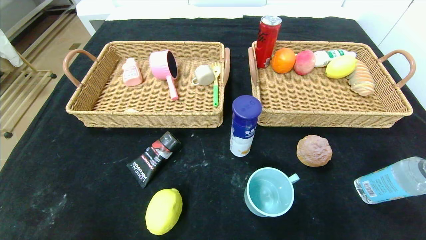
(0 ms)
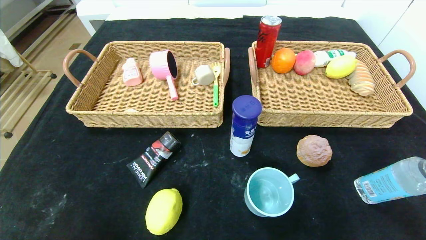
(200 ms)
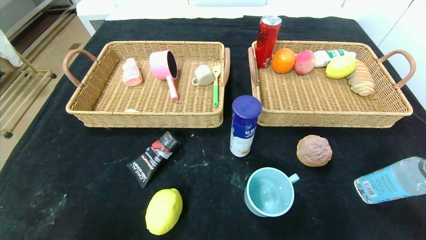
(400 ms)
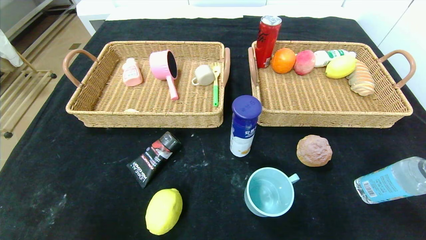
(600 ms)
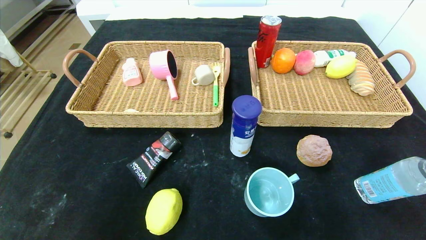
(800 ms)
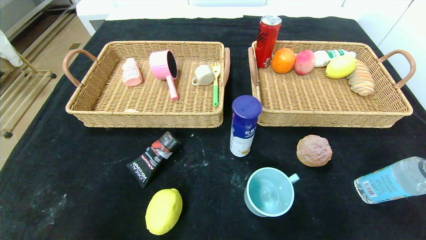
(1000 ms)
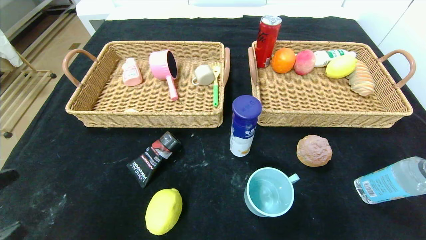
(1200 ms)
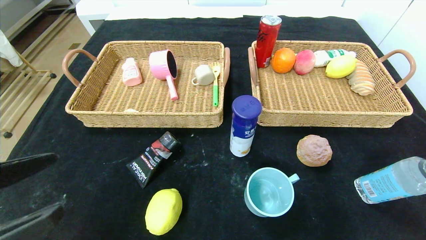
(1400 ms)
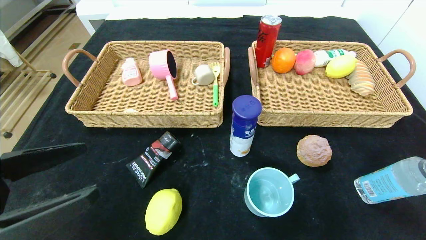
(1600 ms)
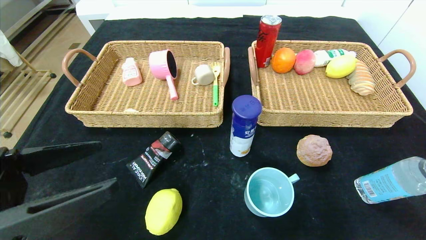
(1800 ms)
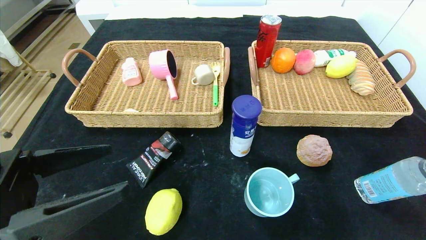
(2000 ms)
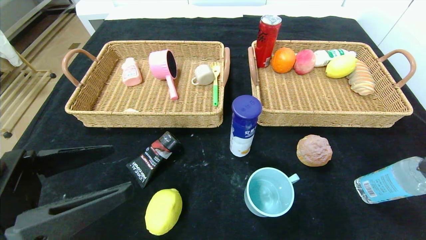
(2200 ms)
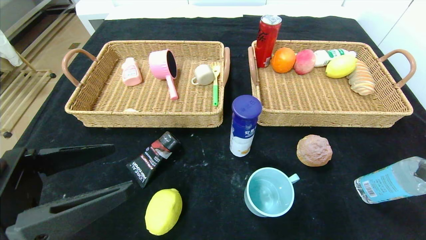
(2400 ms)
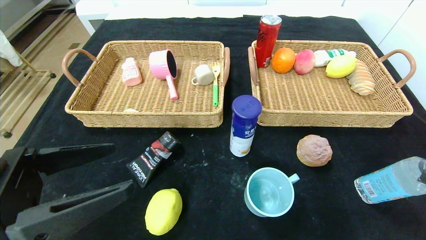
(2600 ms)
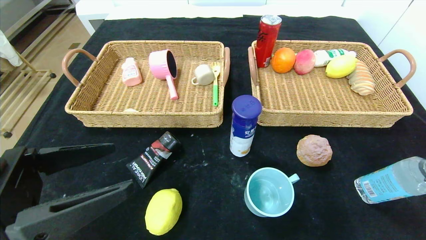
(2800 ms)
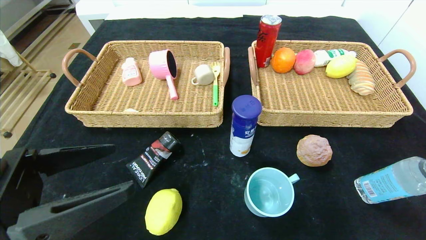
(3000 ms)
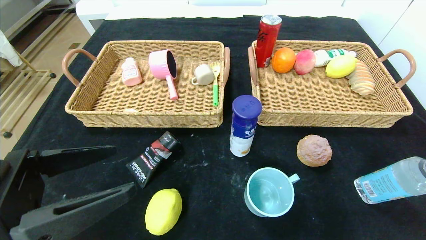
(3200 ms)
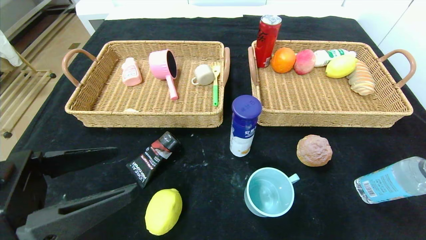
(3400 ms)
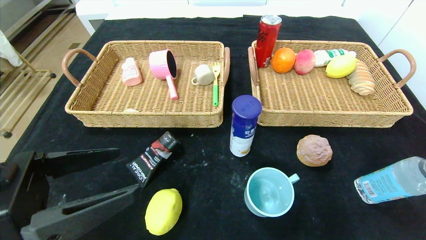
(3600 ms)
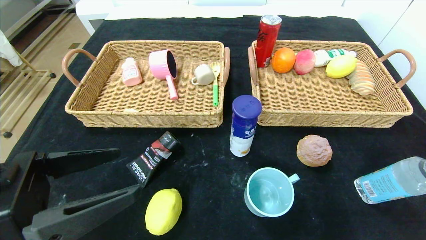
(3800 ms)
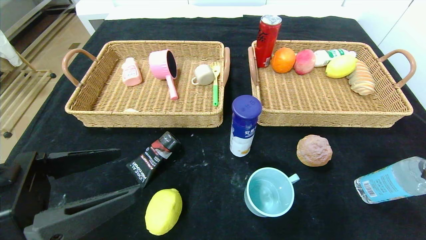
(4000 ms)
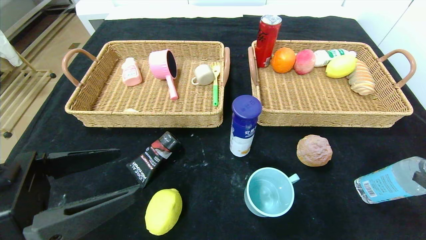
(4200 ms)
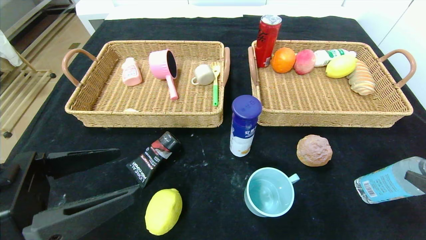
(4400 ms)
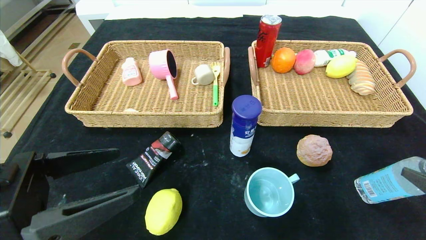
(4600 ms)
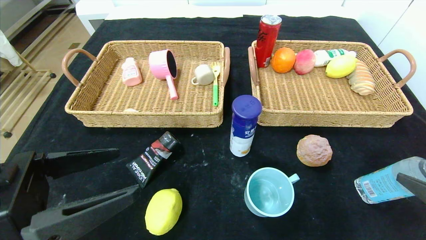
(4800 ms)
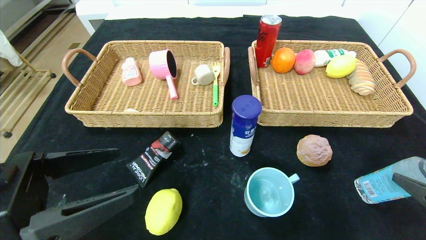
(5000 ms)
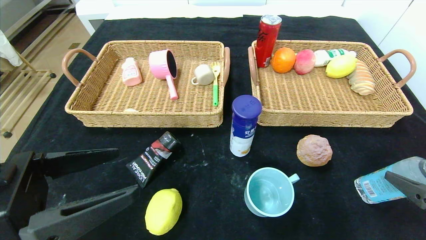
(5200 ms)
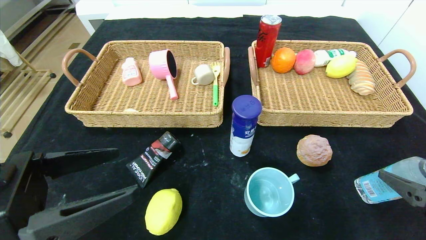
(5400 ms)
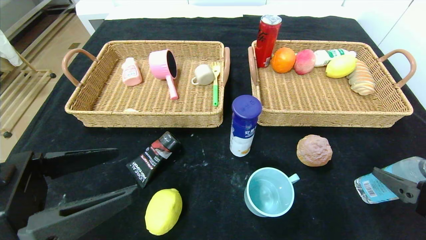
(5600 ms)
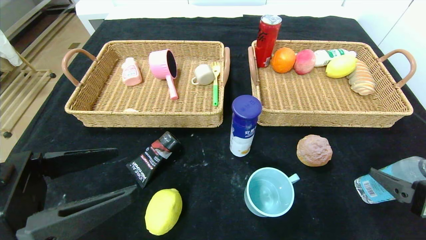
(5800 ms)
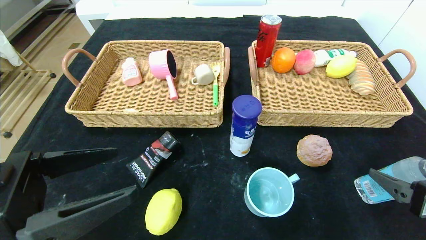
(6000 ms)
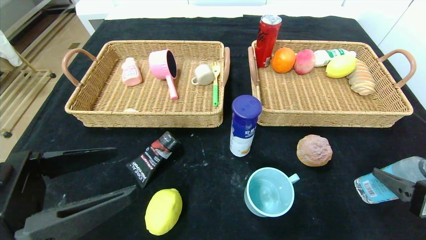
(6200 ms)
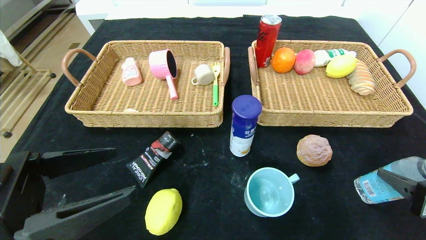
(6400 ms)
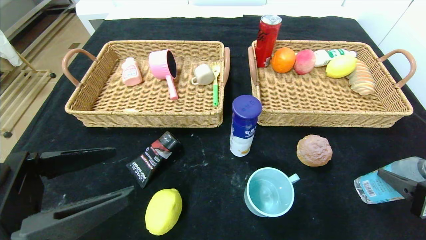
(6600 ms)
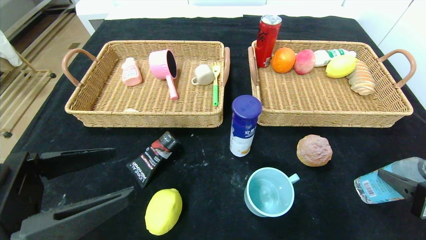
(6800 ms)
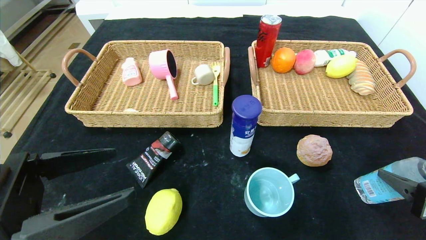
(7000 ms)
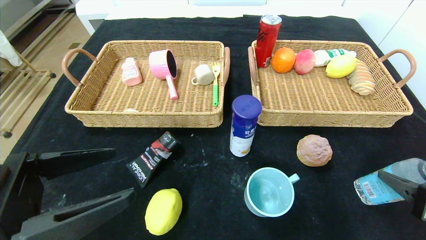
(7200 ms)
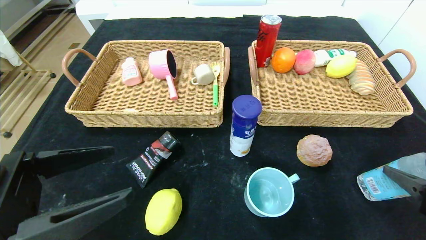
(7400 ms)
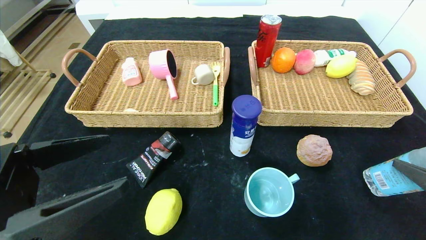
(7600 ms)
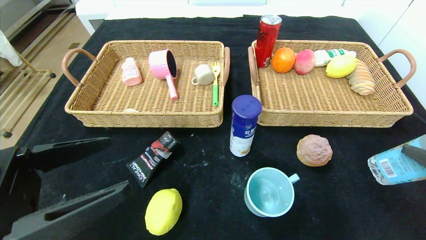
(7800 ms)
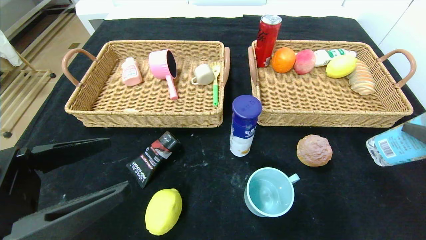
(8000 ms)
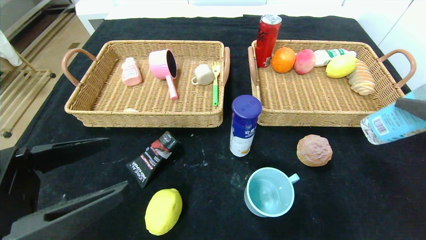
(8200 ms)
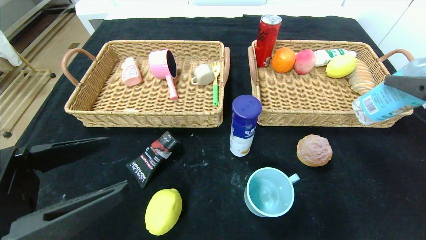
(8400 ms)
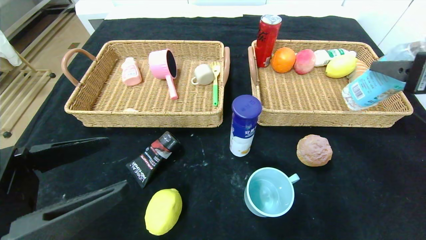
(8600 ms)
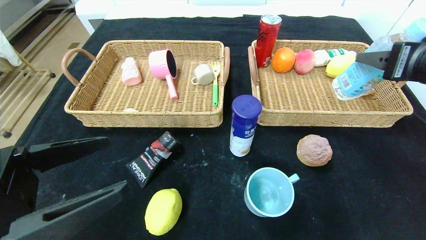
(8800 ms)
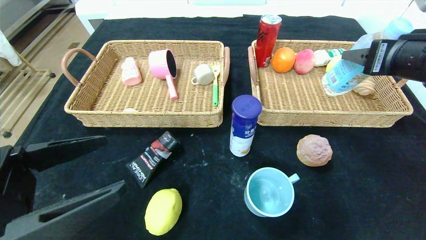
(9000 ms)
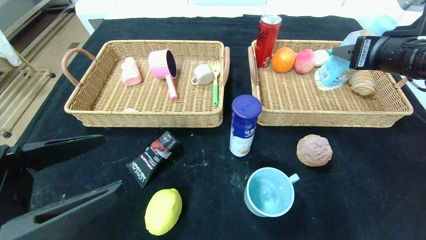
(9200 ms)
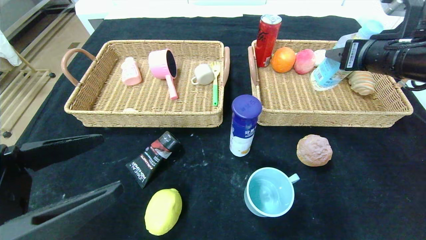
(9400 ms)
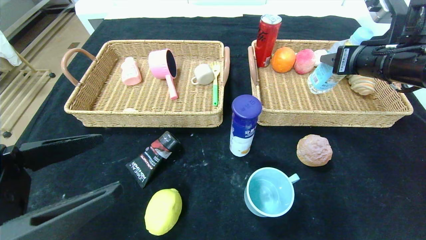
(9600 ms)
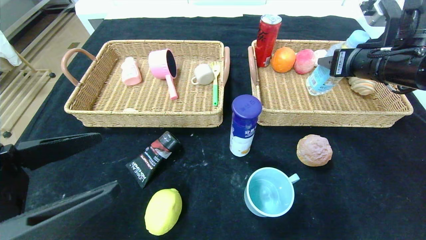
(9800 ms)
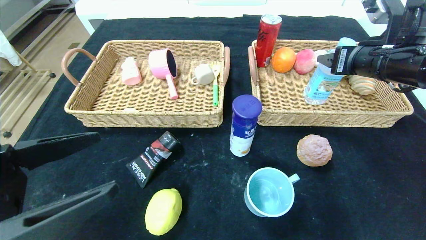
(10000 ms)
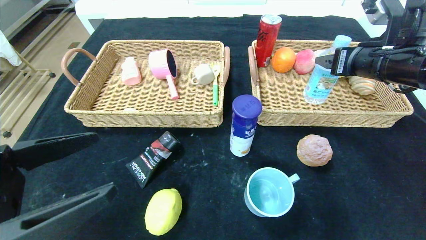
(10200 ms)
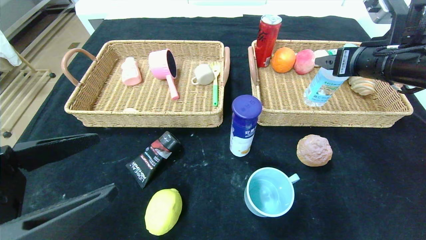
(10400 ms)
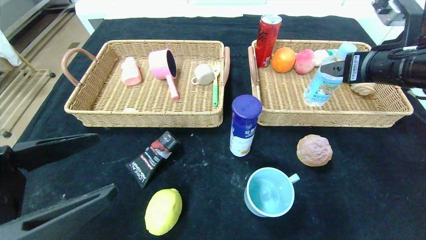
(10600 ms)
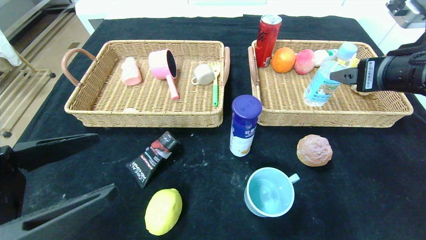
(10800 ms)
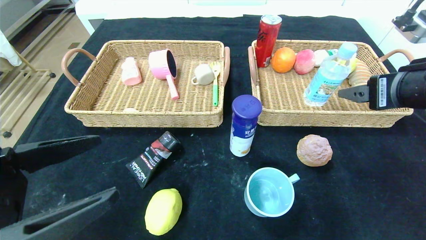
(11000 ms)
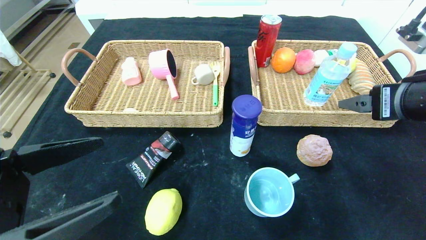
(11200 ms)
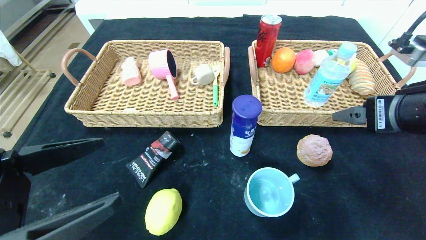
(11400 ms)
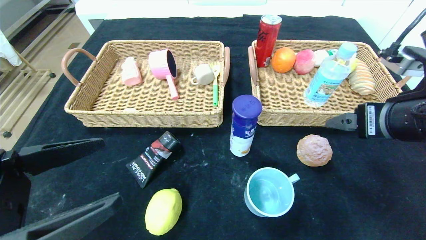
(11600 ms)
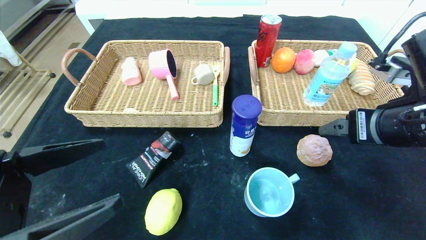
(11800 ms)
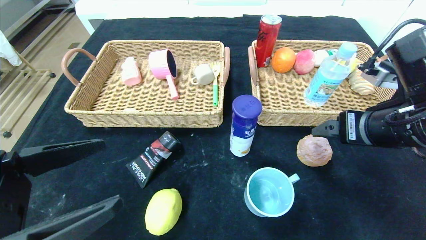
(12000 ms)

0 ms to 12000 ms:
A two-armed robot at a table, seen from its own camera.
0 ms to 1600 ms: The right gripper is displaced upward by roughly 20 cm. Meanwhile the left gripper moves upward and forward, approximately 20 cm.
1600 ms to 3000 ms: The grippers move only a little.
4400 ms to 6000 ms: The right gripper ends up roughly 5 cm from where it was.
6000 ms to 7600 ms: The right gripper closes.
7600 ms to 9000 ms: The right gripper shifts about 20 cm forward and upward.
9000 ms to 10400 ms: The right gripper opens.
10400 ms to 12000 ms: The right gripper heads backward, covering about 10 cm.

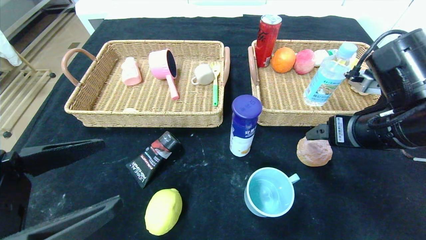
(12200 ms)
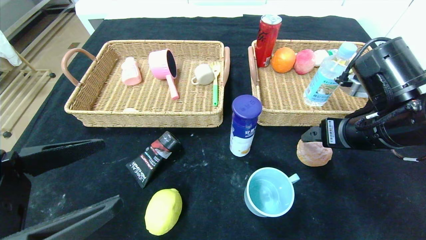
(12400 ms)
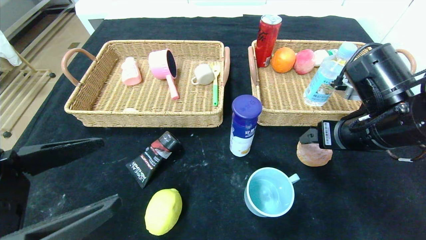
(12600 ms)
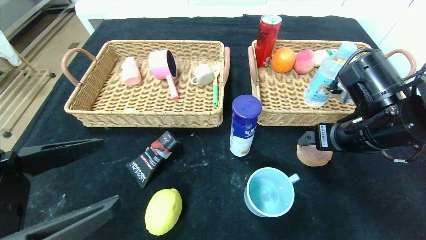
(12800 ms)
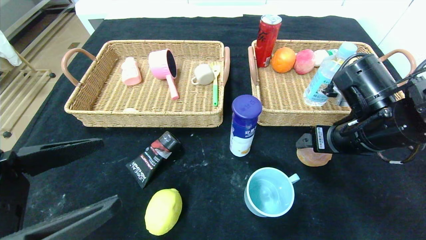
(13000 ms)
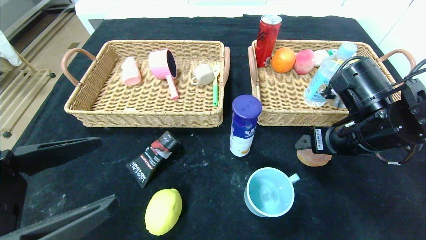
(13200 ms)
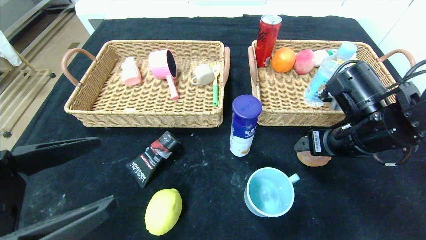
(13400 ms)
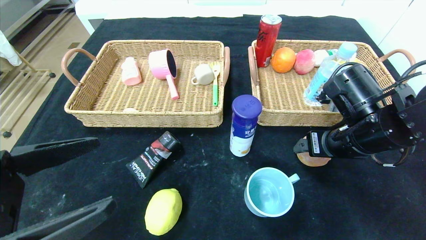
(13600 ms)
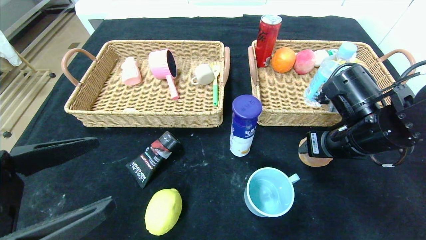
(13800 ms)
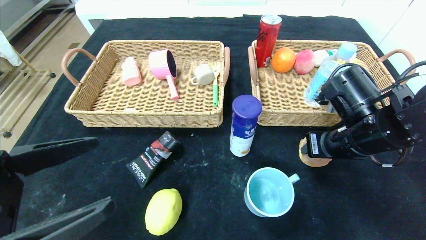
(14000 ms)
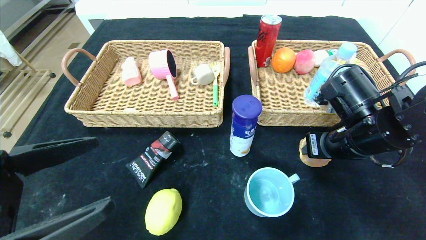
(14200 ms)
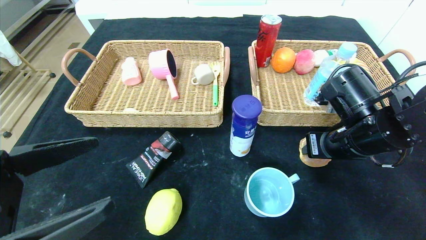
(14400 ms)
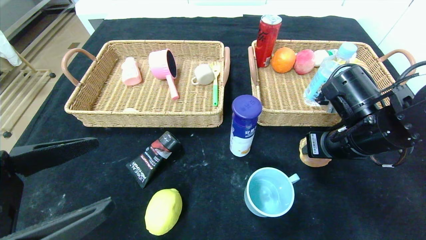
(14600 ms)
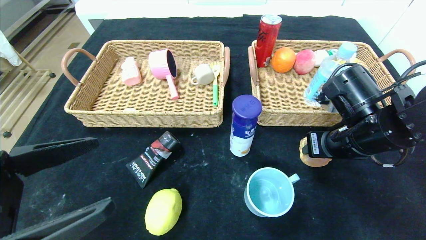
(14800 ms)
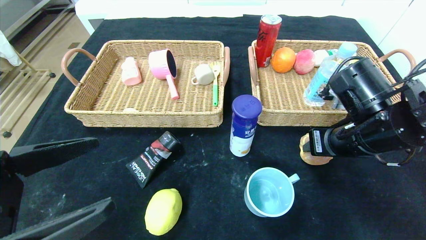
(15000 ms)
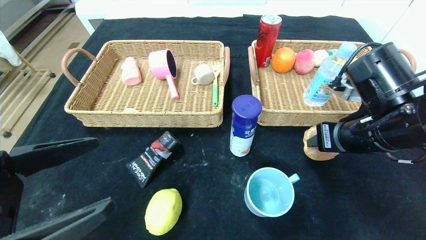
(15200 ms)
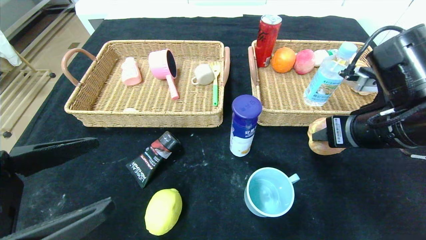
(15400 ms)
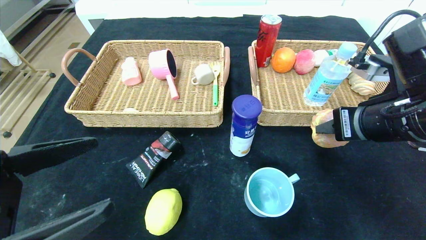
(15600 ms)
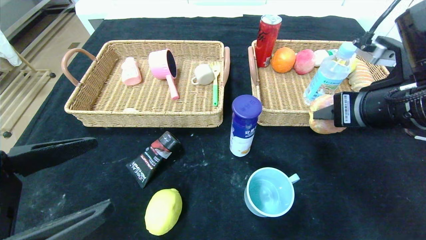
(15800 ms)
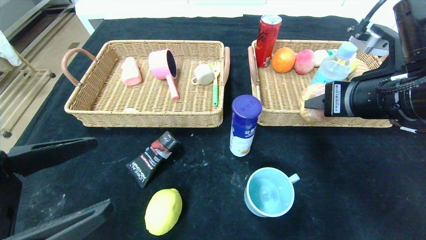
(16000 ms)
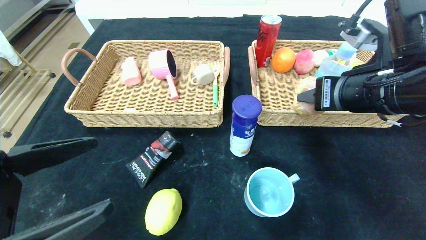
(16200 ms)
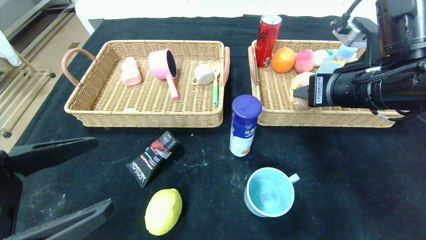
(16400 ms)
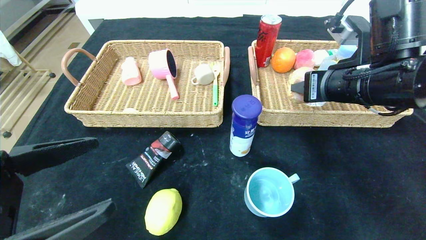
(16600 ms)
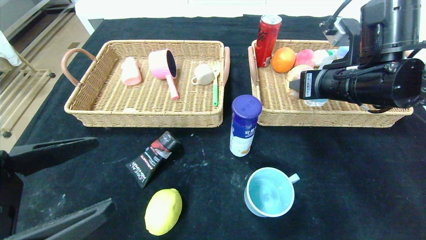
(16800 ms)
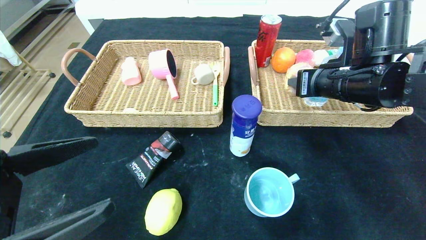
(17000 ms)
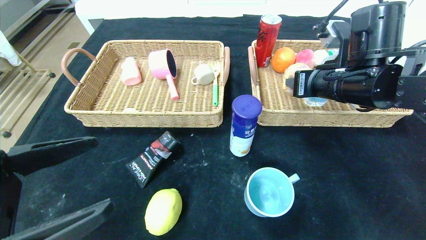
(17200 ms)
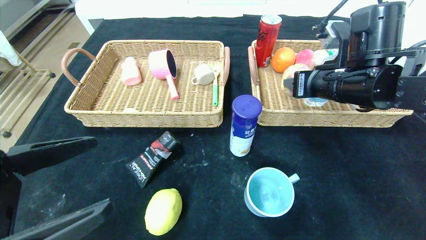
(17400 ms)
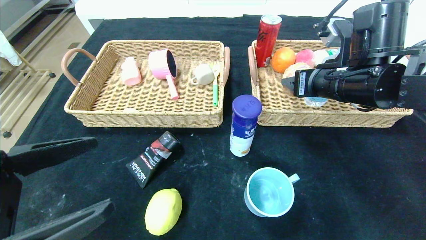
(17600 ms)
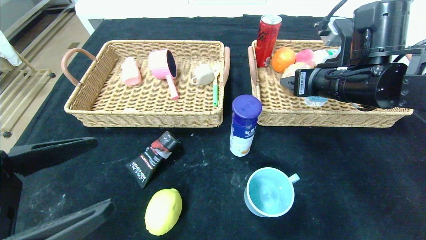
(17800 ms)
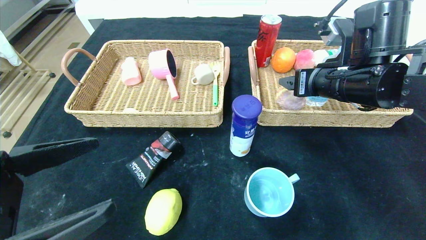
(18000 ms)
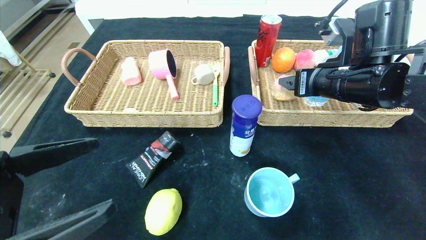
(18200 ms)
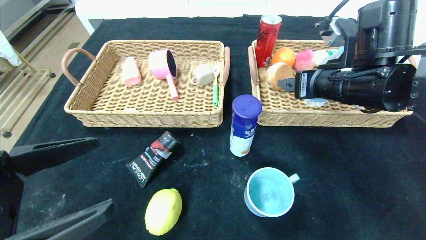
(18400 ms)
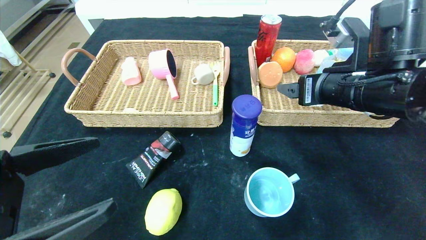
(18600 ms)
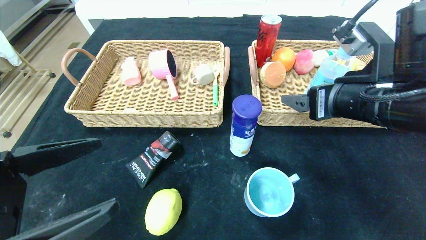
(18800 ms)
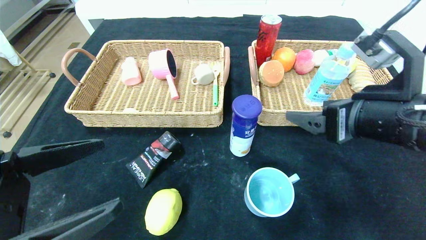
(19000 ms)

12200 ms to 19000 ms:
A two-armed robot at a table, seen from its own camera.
12200 ms to 13600 ms: The right gripper changes place by roughly 5 cm.
13600 ms to 15000 ms: The right gripper closes its fingers.
15000 ms to 16200 ms: The right gripper travels upward by roughly 5 cm.
16200 ms to 17600 ms: The right gripper shifts roughly 5 cm forward, and opens up.
17600 ms to 19000 ms: The right gripper shifts some 10 cm backward, and opens.
